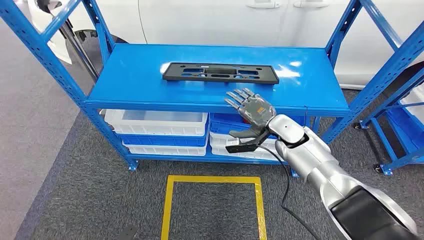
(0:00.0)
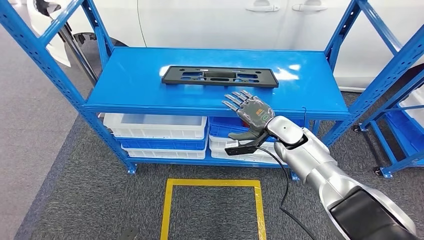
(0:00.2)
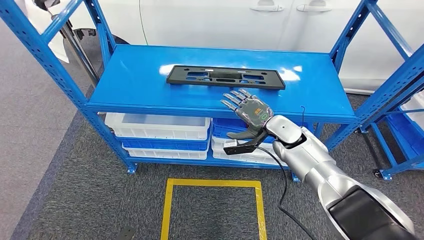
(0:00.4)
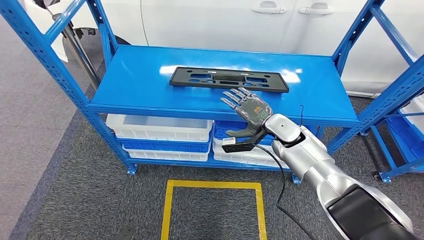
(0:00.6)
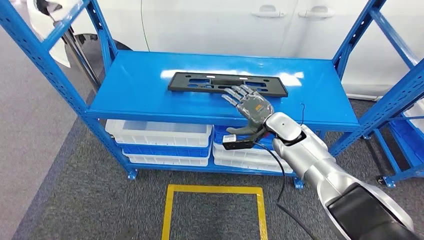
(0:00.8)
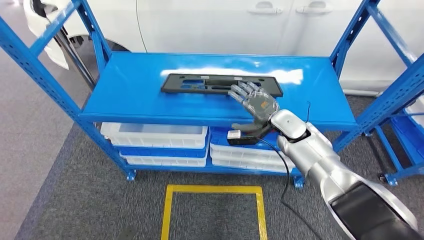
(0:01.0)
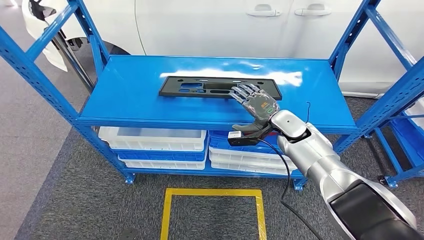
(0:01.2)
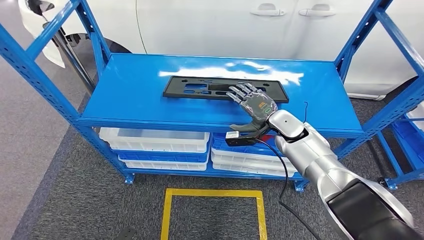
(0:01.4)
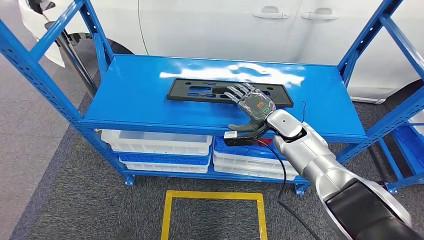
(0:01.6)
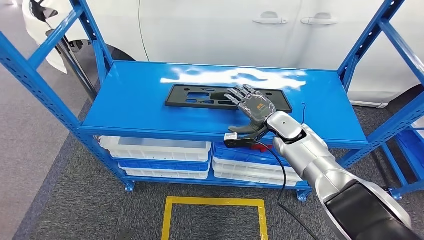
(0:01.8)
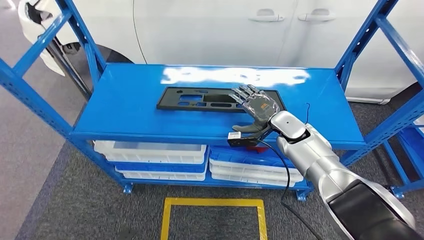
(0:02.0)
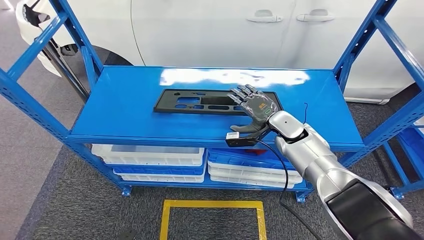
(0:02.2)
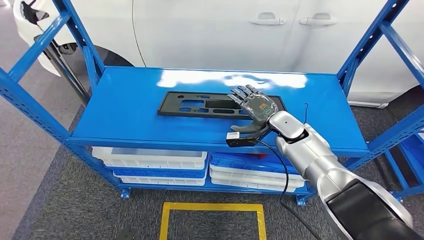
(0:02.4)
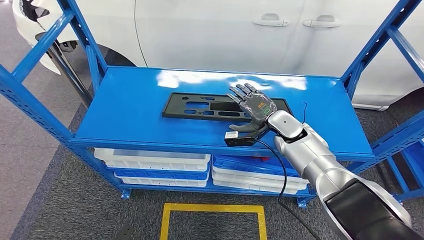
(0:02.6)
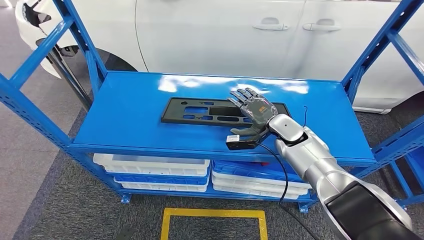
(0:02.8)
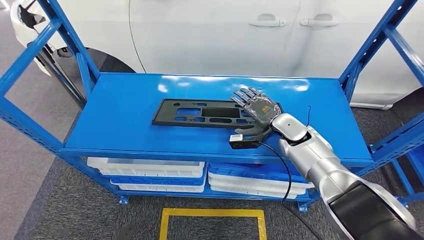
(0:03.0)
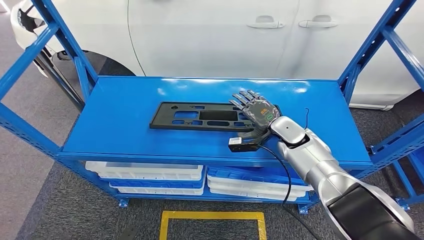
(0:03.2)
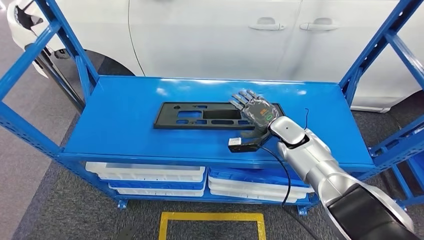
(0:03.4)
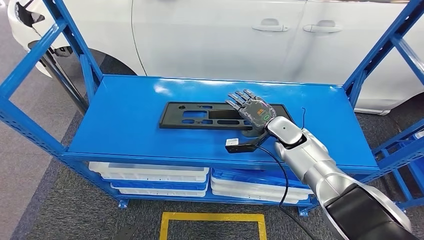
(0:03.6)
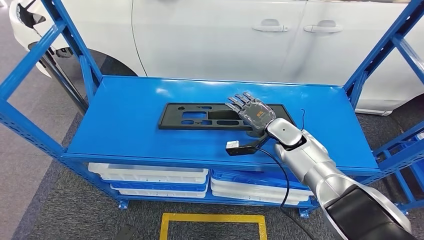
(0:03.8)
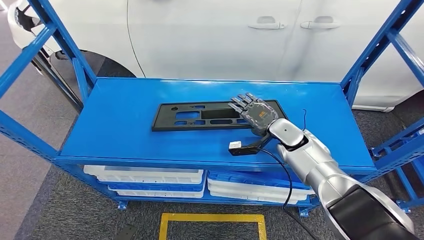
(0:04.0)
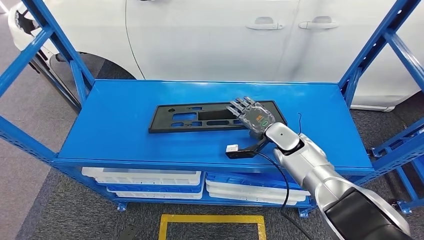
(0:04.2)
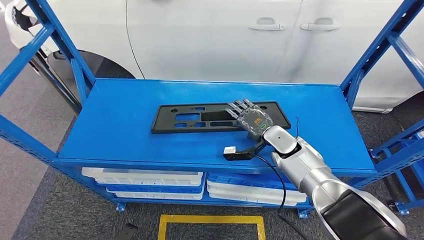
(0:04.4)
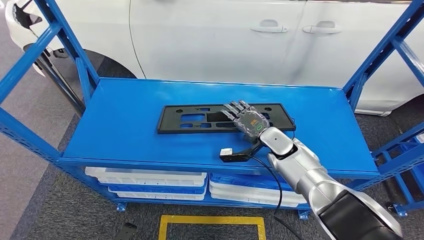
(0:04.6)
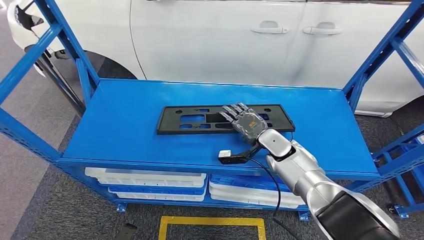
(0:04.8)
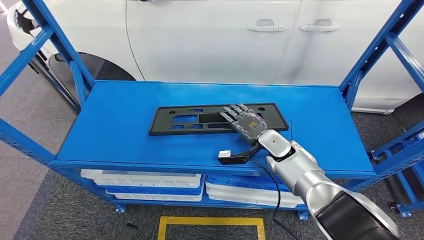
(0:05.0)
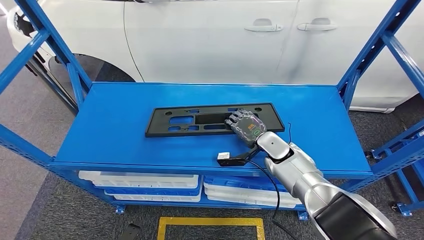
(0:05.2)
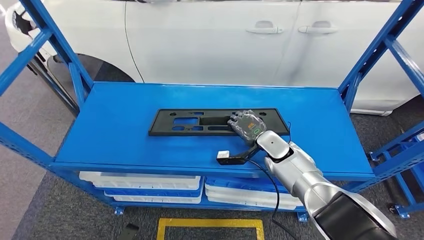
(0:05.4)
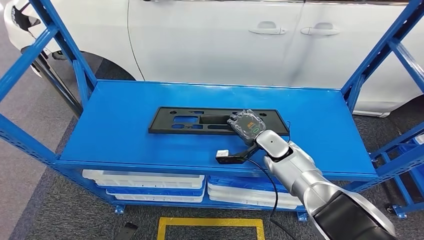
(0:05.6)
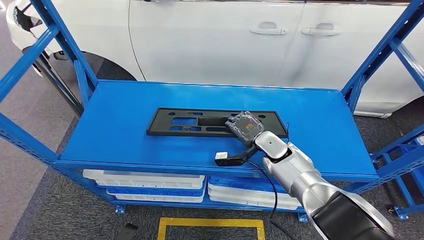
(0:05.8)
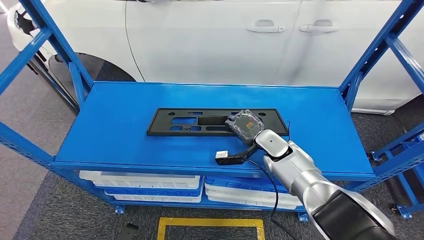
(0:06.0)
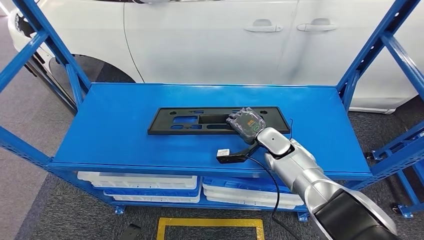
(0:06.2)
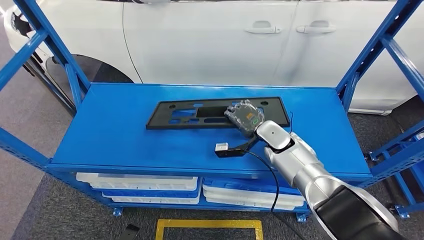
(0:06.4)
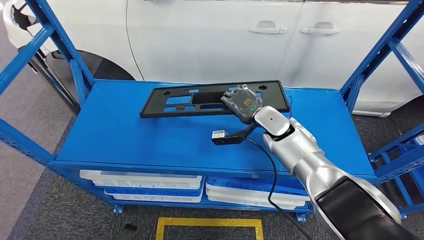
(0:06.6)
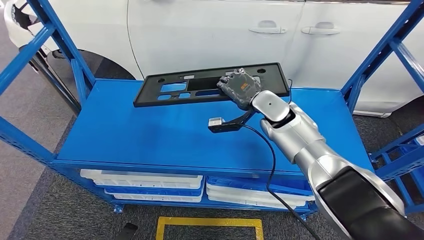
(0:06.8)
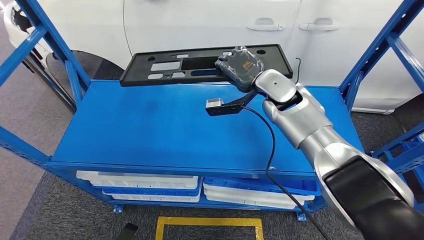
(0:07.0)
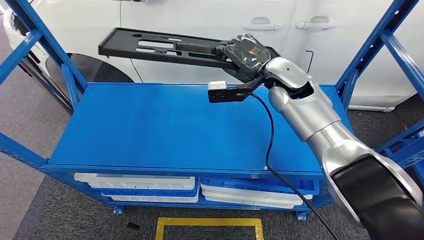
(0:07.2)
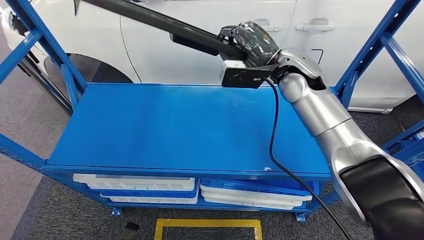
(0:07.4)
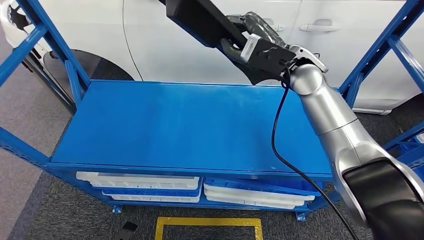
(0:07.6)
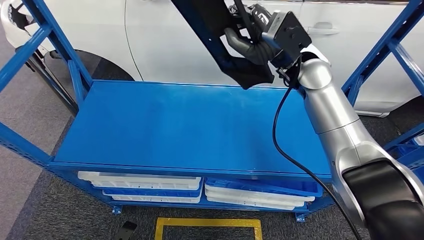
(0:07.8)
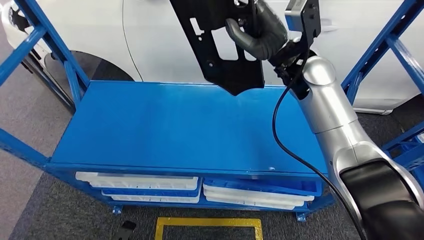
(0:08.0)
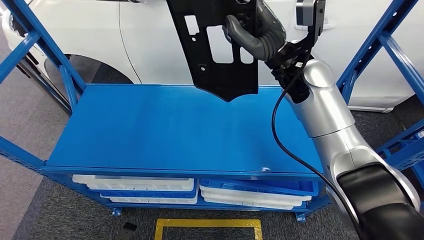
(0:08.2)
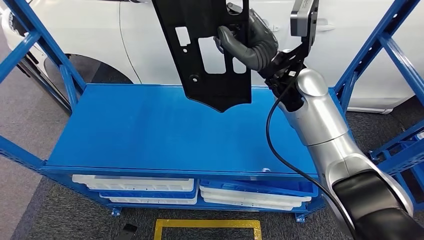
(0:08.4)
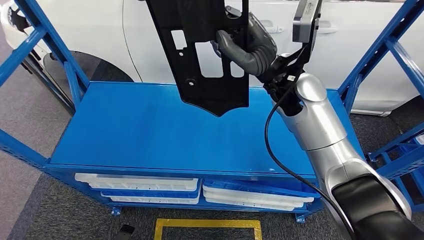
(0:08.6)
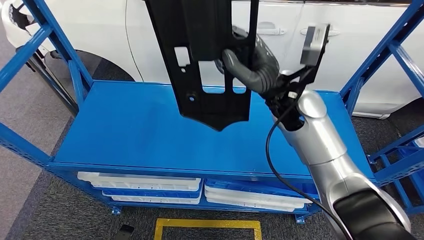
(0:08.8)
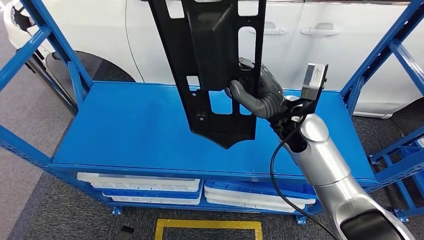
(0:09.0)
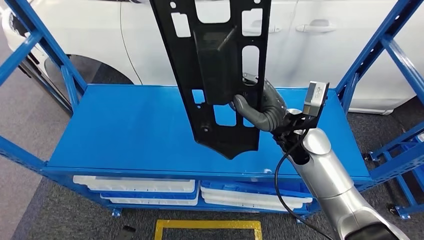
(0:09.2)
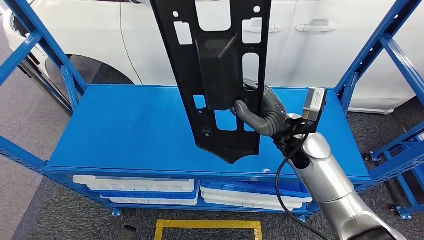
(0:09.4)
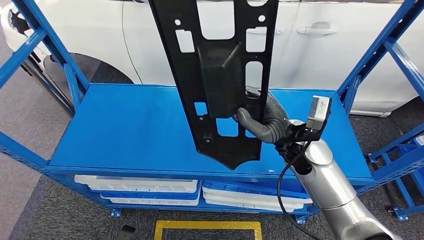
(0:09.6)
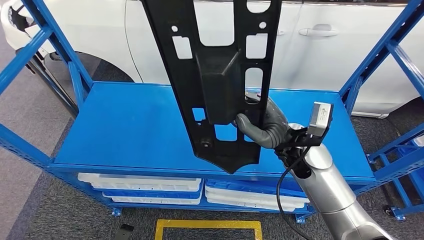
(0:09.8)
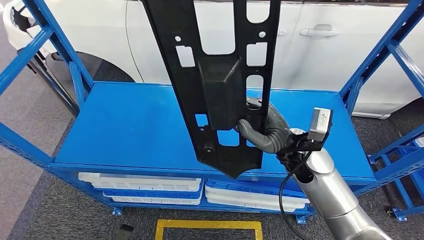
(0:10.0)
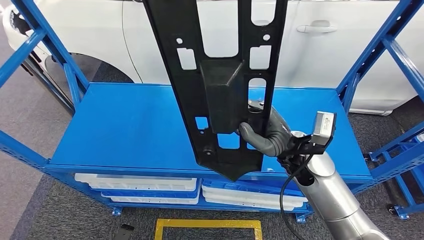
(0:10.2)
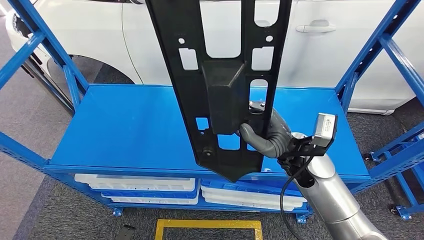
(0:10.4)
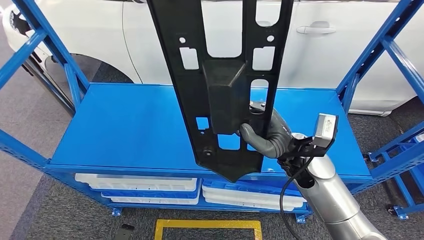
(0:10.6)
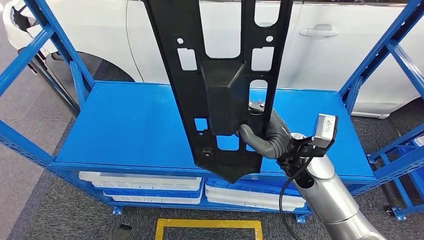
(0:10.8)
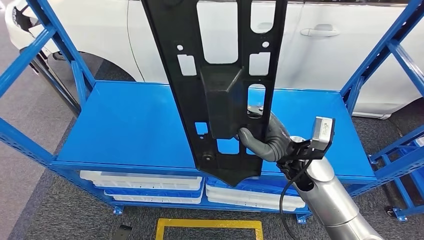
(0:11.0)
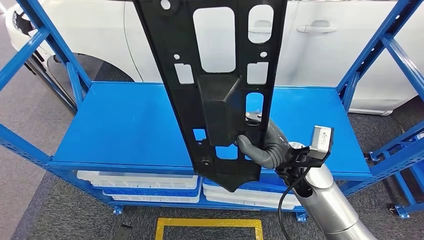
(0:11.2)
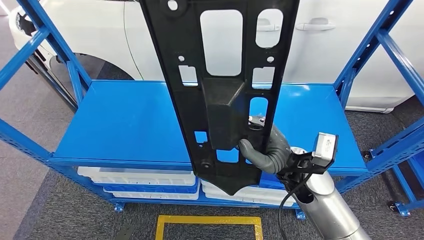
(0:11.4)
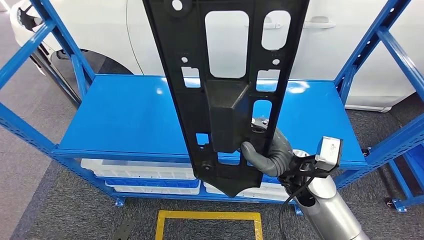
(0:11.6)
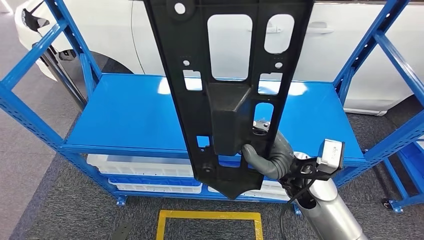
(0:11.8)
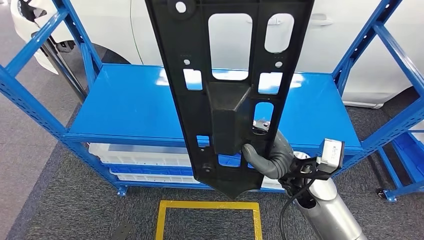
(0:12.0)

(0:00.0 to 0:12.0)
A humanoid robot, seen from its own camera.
Step, 0:00.0 - 0:07.2: Pick up the large material from the shelf.

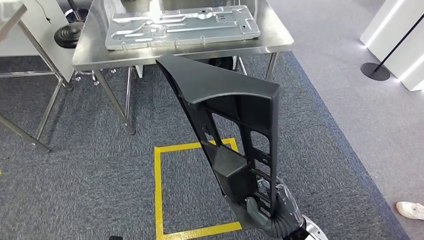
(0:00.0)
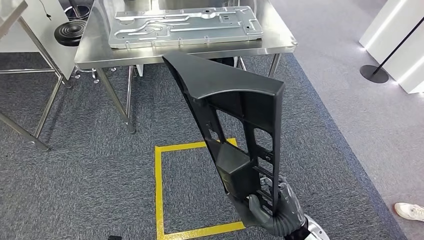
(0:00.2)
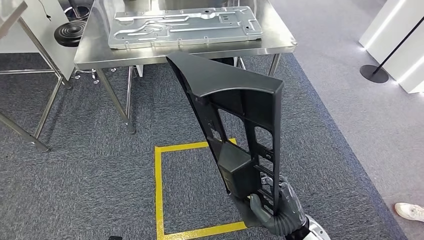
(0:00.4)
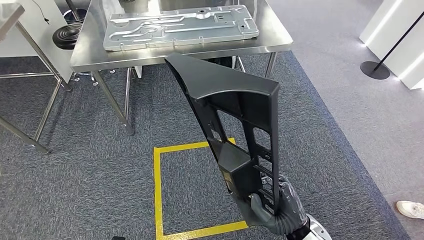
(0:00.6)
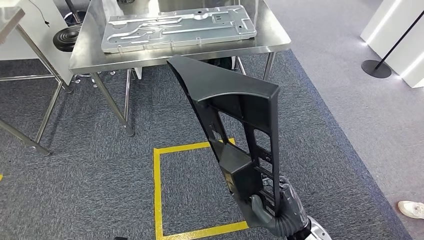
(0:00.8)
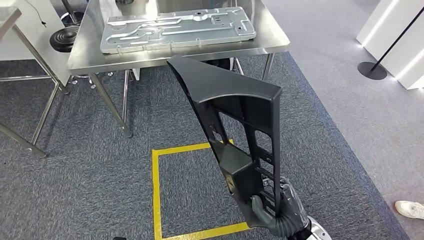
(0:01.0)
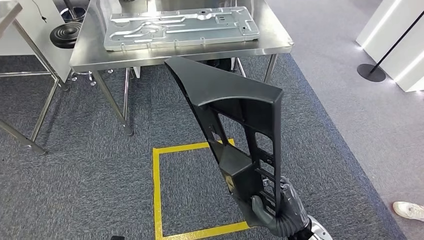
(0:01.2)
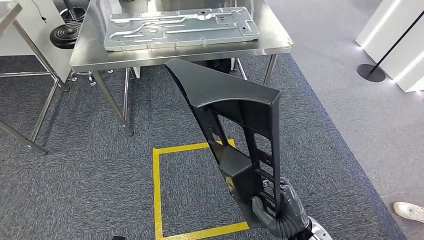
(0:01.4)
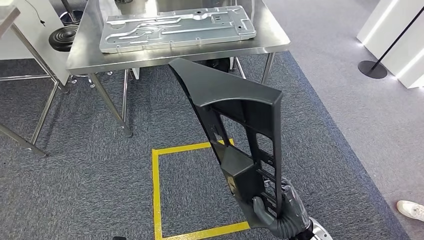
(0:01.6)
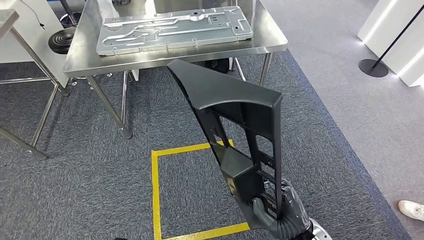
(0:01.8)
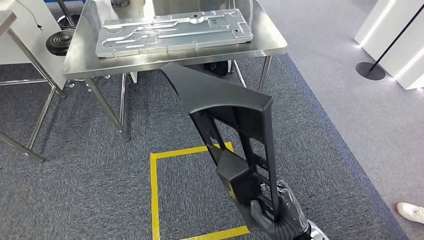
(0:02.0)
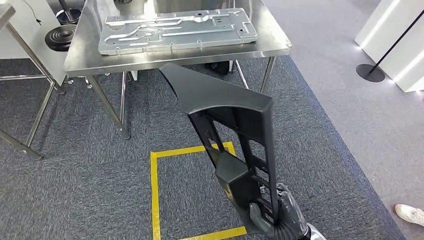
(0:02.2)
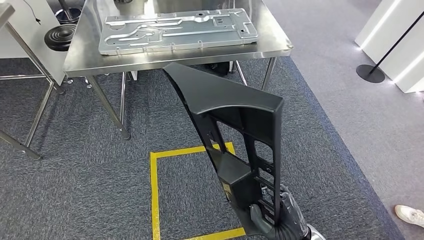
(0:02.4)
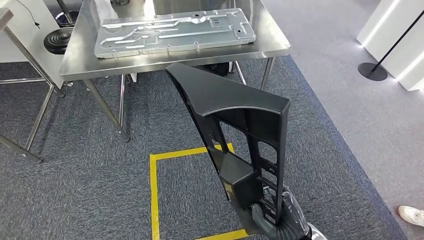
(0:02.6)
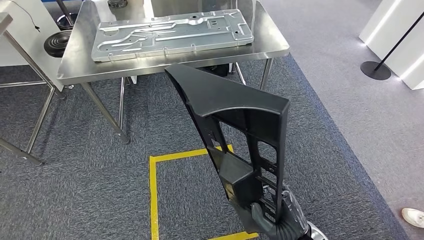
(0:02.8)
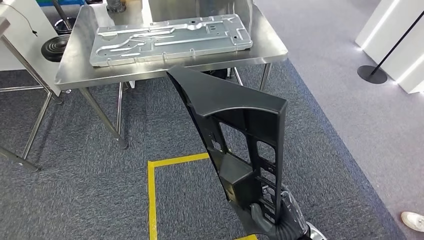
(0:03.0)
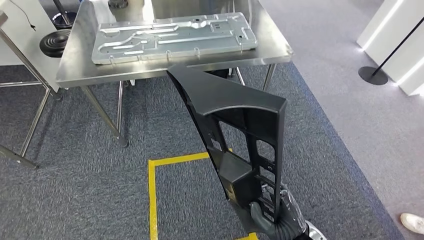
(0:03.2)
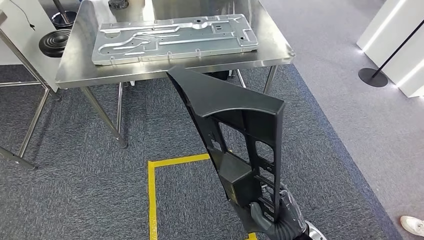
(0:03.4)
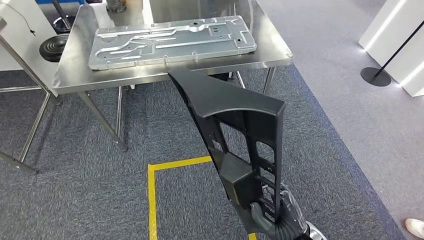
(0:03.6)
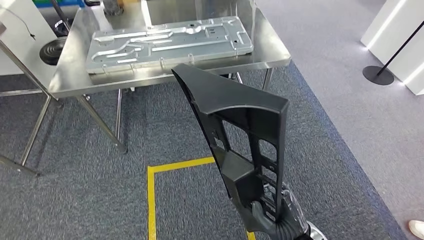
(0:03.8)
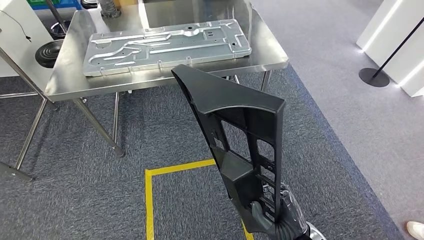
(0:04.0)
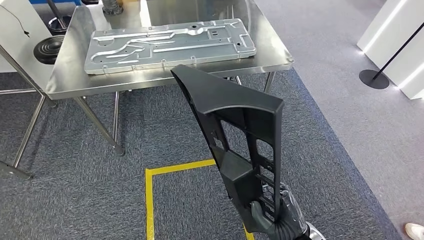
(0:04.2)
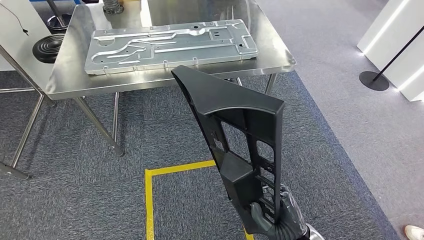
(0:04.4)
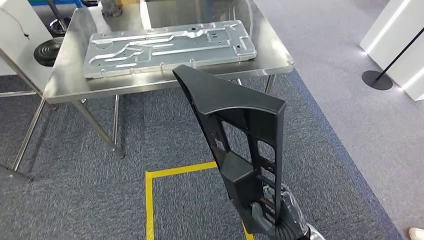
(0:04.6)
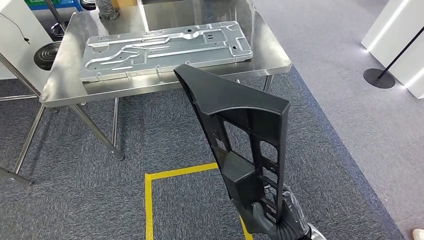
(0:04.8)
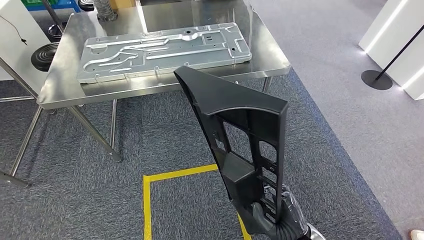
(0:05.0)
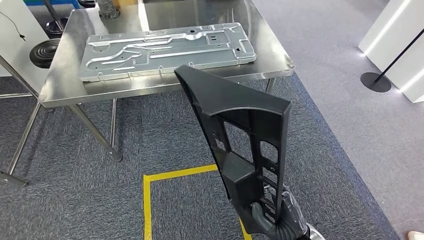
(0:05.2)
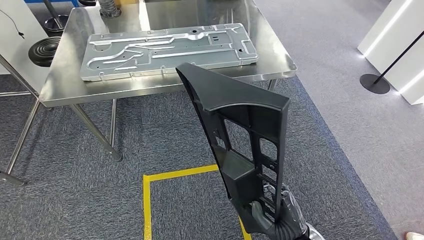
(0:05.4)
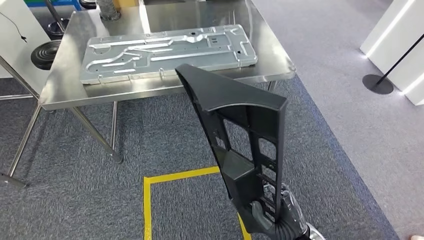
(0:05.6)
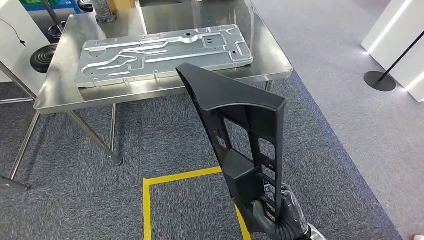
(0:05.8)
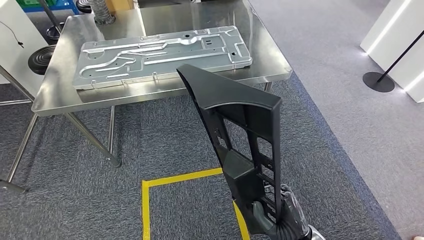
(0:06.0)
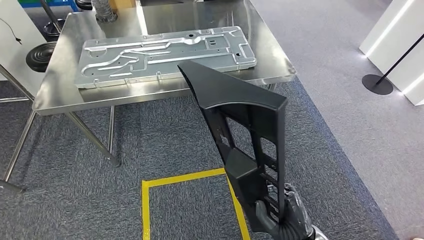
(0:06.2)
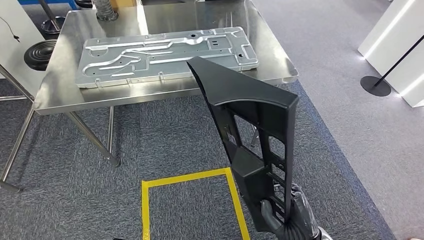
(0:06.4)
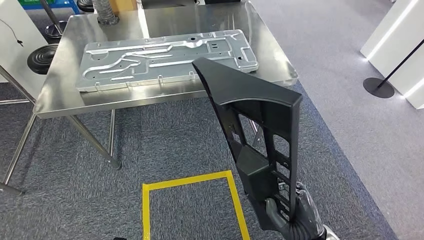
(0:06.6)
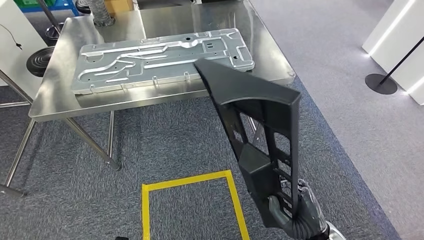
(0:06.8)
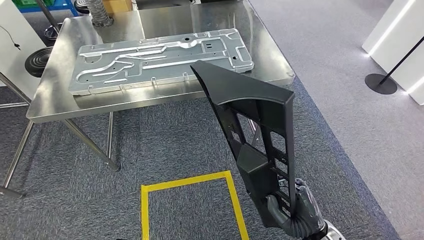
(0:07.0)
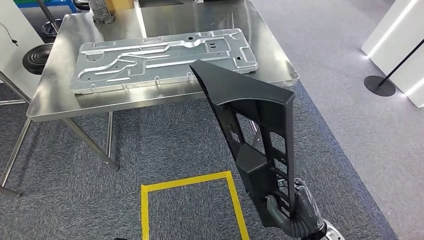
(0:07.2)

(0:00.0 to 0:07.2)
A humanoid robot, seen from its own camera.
0:00.0 - 0:01.4: There are only small adjustments of the hands.
